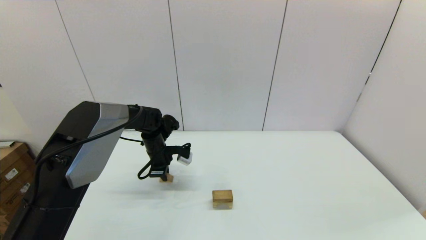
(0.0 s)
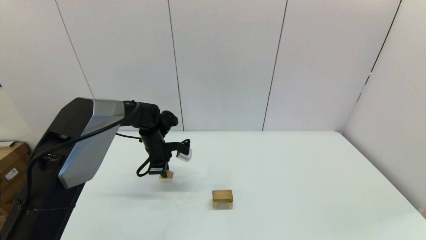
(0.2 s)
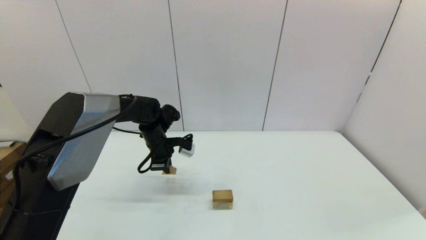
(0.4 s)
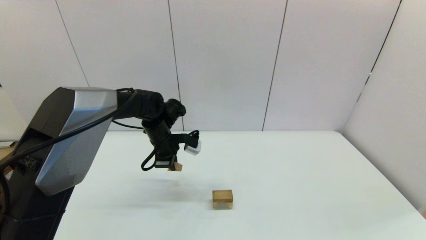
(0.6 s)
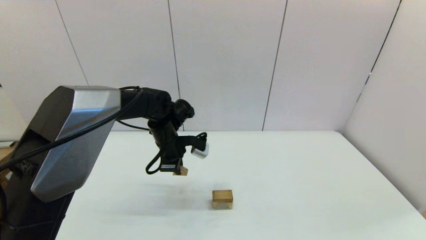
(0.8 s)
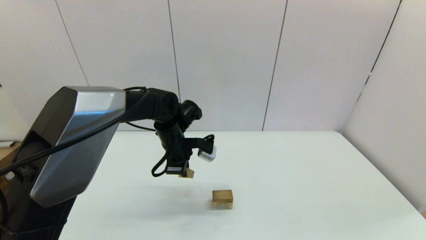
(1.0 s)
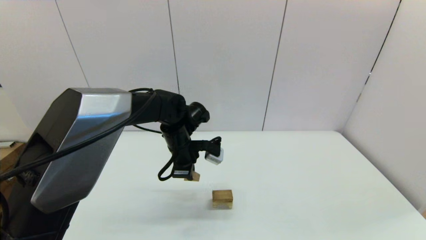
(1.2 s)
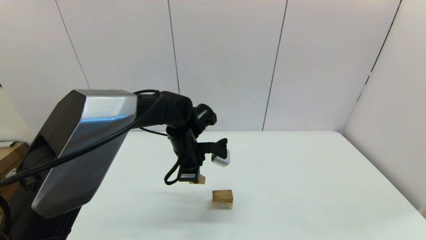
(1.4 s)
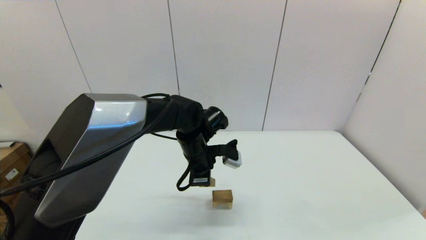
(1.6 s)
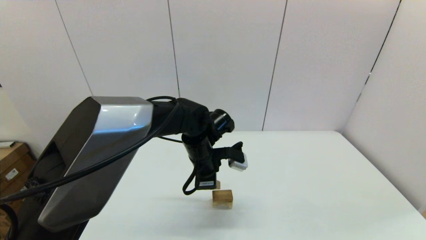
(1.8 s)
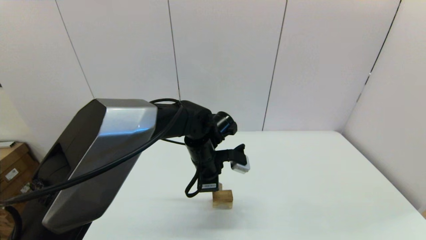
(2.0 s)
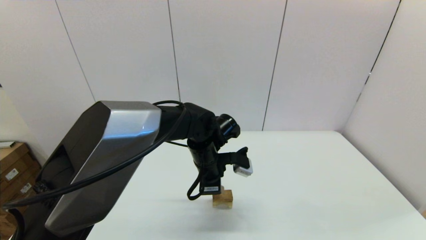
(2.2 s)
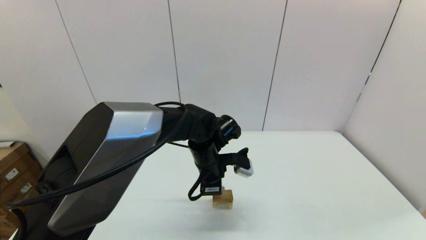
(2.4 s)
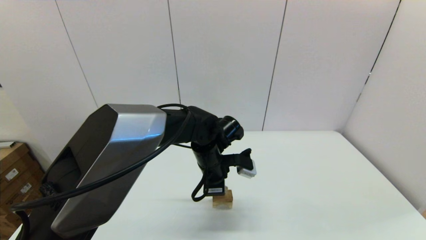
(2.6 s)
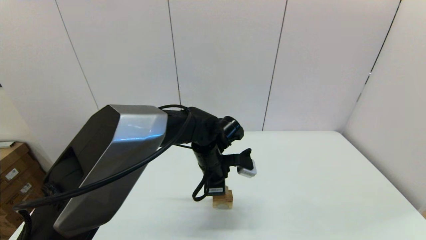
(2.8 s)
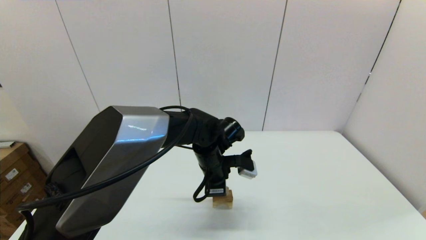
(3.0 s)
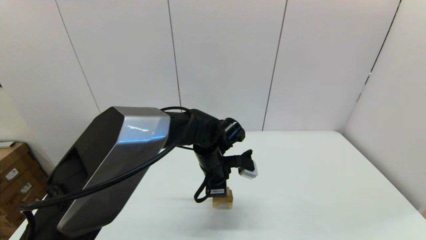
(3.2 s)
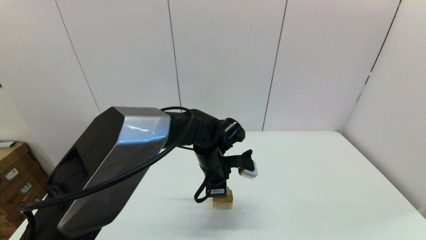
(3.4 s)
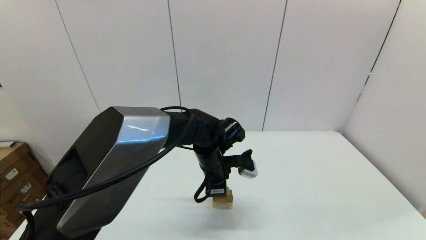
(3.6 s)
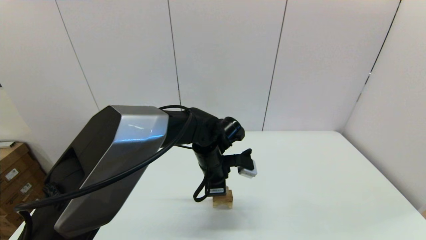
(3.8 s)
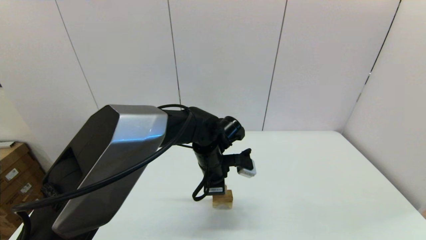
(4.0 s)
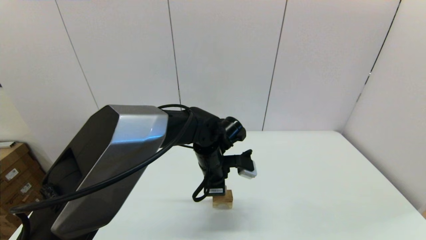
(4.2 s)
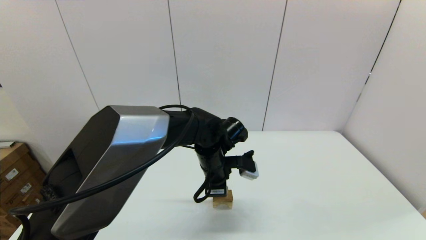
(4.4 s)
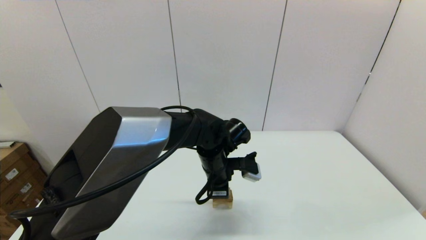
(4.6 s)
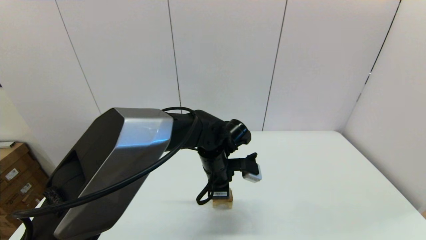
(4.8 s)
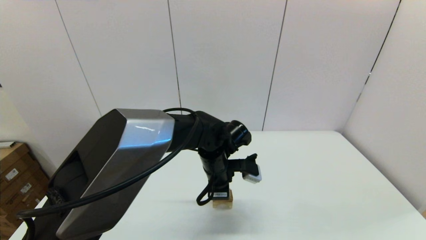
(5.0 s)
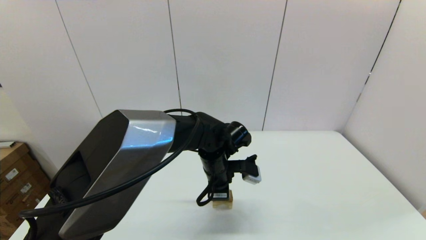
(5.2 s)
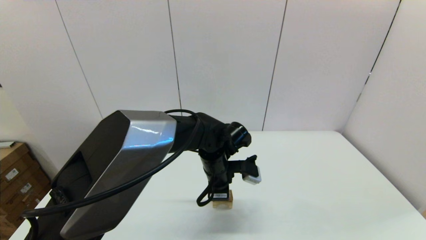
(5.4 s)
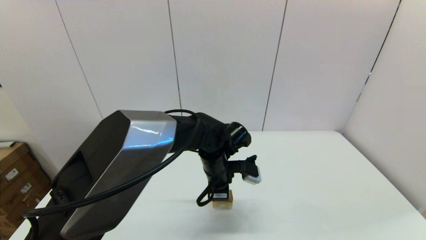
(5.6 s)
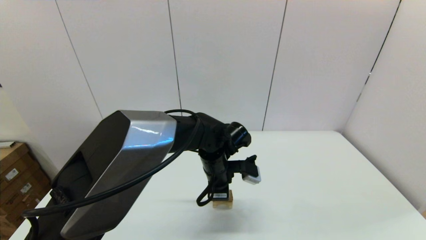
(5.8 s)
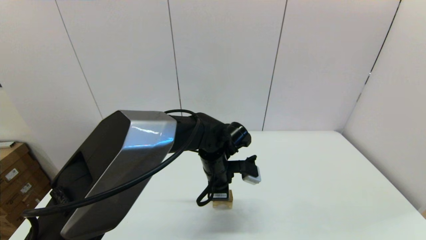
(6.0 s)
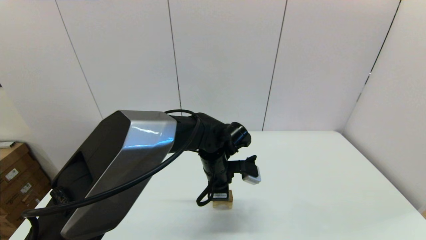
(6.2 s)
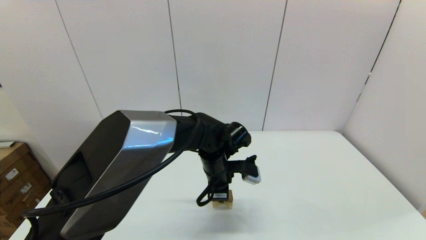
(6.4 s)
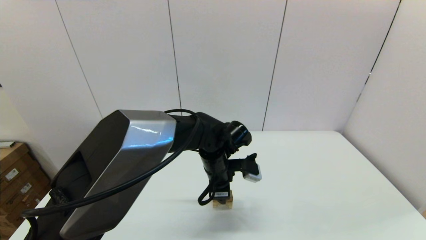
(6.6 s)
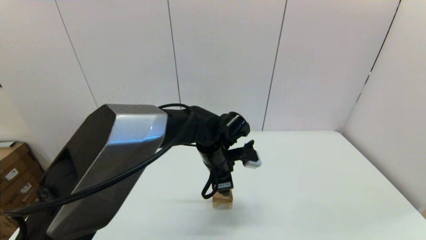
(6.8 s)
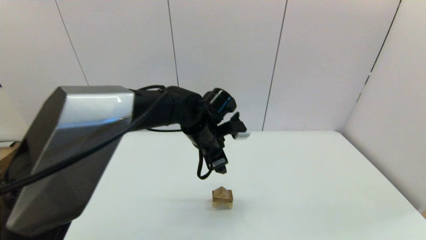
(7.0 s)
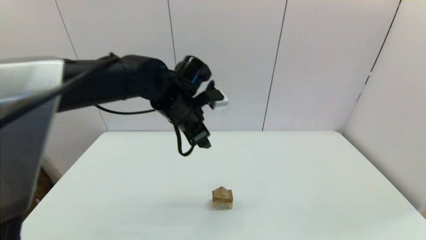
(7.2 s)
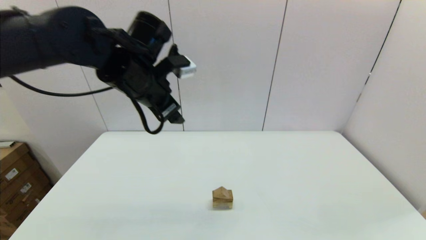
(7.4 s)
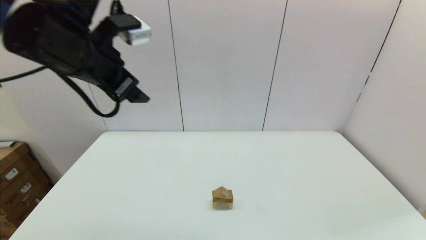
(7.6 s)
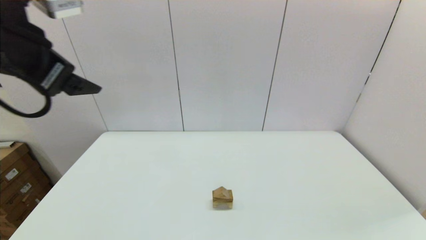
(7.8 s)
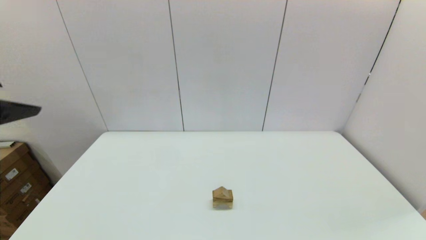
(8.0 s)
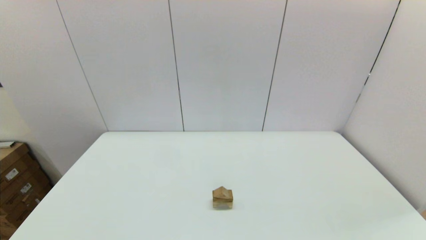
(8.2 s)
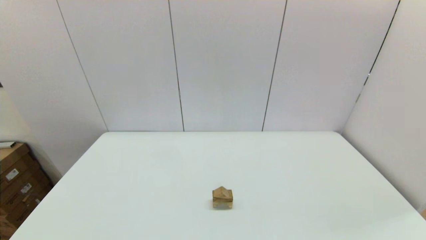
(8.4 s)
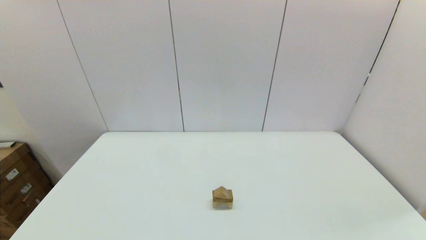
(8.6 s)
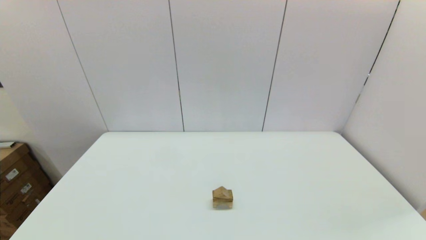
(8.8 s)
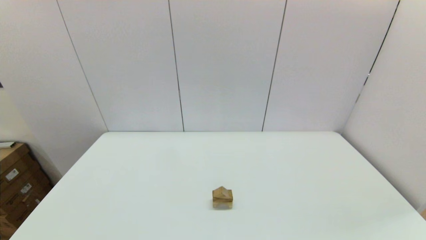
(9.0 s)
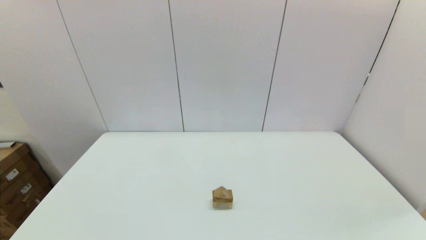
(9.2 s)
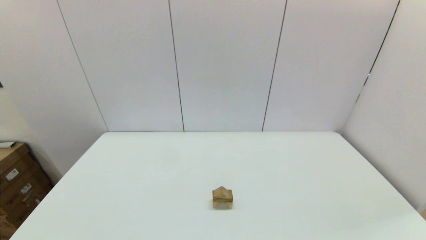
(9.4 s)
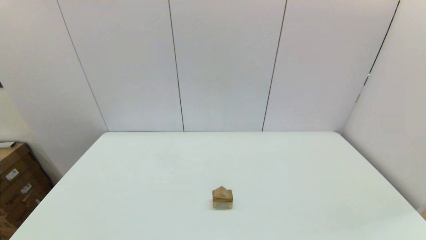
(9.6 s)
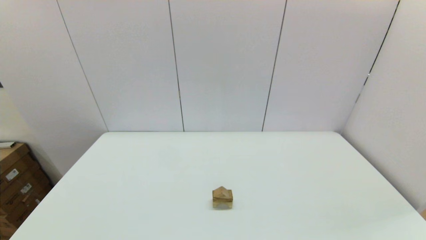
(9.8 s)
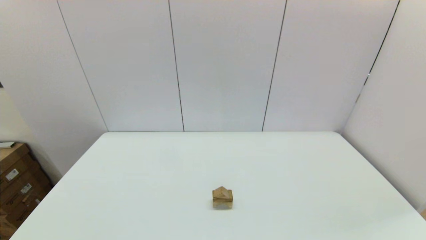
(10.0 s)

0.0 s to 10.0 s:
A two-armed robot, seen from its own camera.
Task of the whole recording: place the arched building blocks in the center of the table, set up the rectangular building blocks, and then set up the triangular building blocks.
0.0 to 1.4 s: The left gripper is displaced to the right, backward and upward by some 15 cm.
1.4 to 2.8 s: The left gripper heads to the right, covering about 5 cm.
2.8 to 4.2 s: The two grippers keep their place.
4.2 to 5.8 s: The grippers stay close to where they were, moving slightly.
5.8 to 7.2 s: The left gripper goes roughly 15 cm upward and to the left, and opens.
7.2 to 8.6 s: The left gripper goes approximately 50 cm backward and to the left.

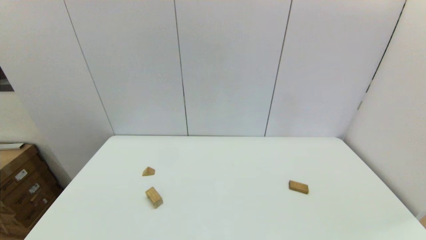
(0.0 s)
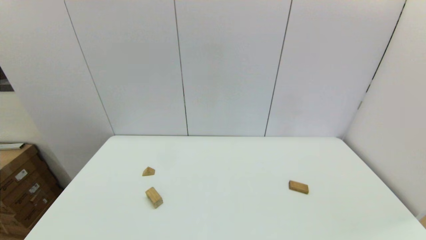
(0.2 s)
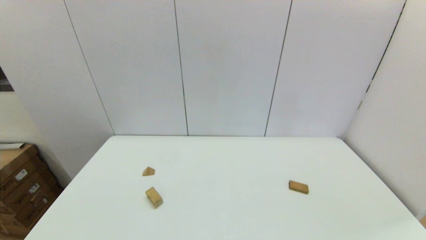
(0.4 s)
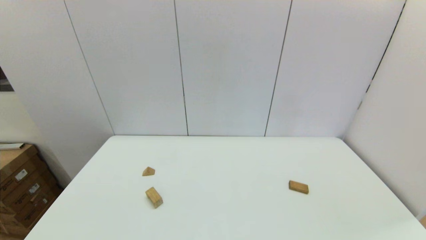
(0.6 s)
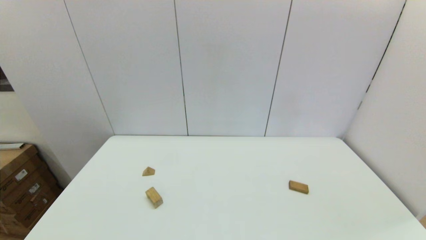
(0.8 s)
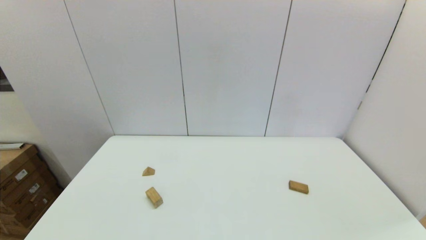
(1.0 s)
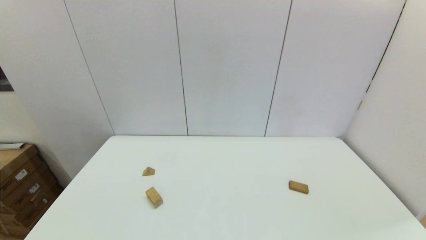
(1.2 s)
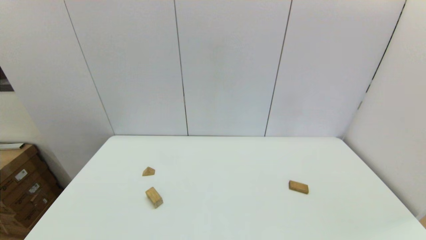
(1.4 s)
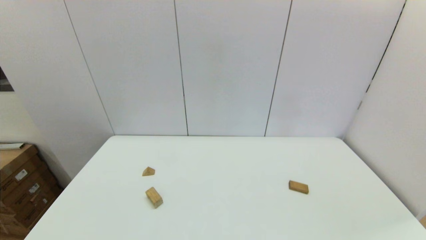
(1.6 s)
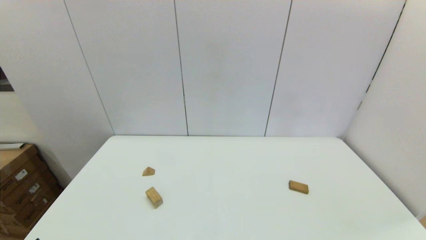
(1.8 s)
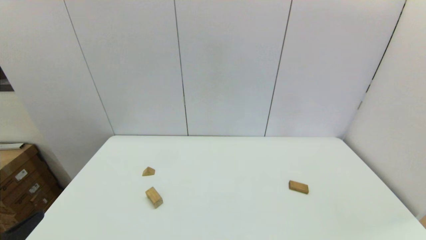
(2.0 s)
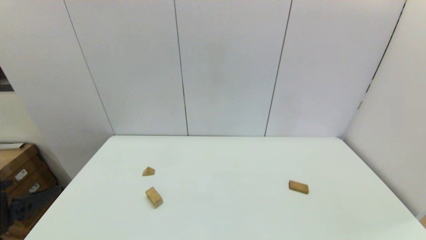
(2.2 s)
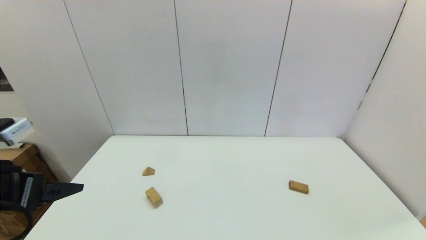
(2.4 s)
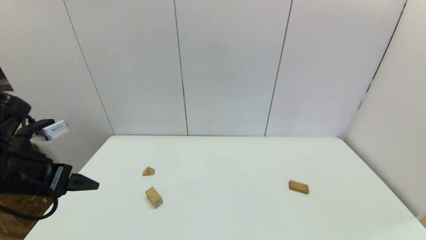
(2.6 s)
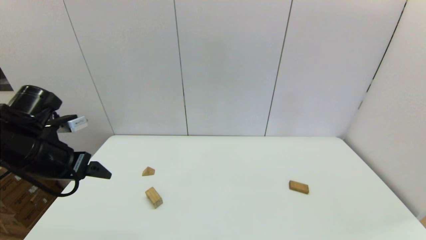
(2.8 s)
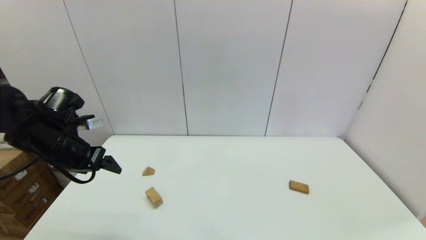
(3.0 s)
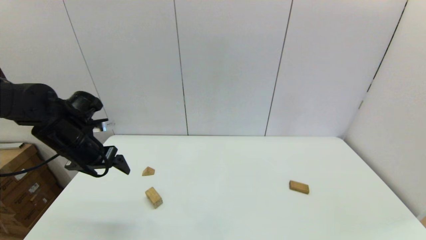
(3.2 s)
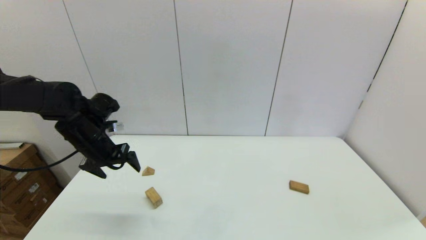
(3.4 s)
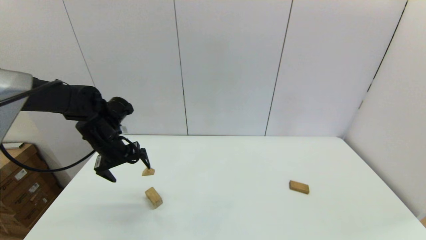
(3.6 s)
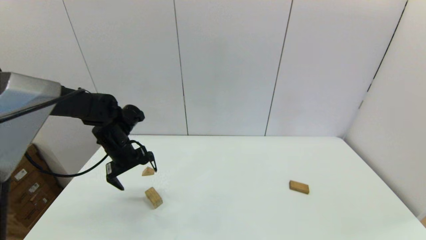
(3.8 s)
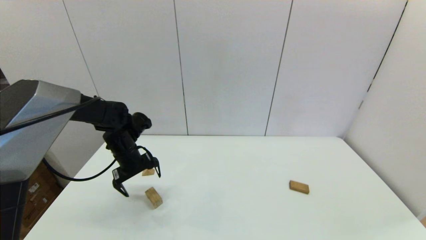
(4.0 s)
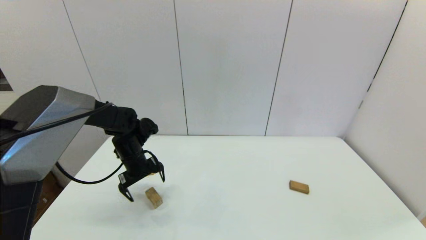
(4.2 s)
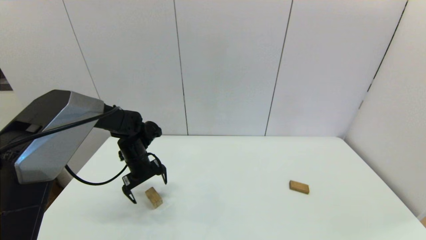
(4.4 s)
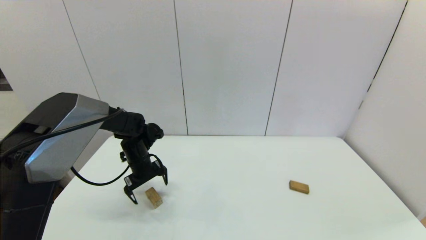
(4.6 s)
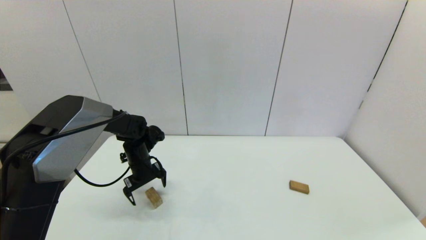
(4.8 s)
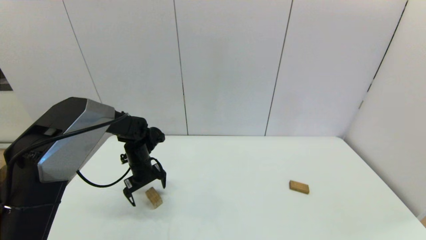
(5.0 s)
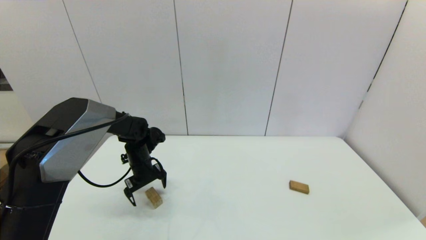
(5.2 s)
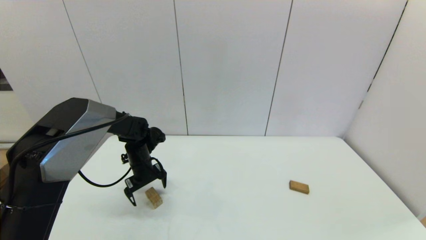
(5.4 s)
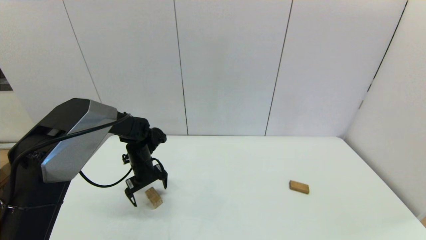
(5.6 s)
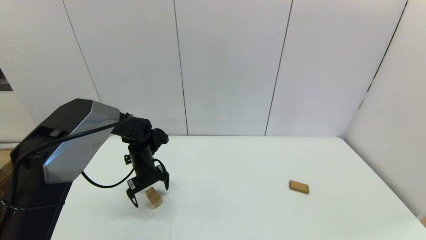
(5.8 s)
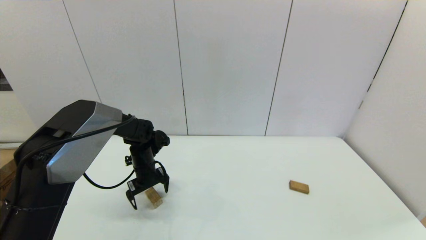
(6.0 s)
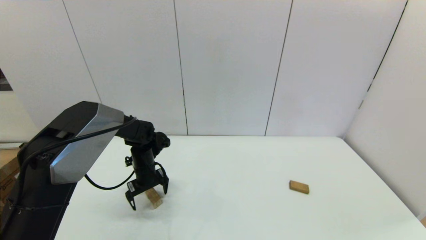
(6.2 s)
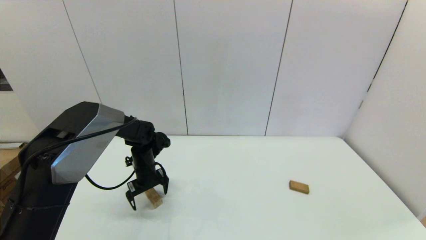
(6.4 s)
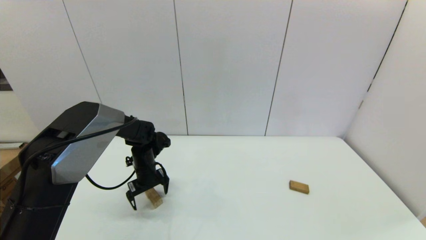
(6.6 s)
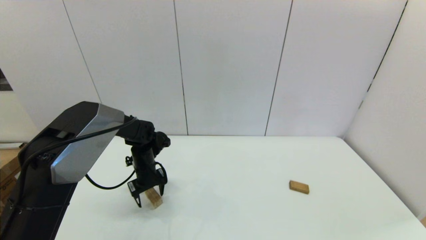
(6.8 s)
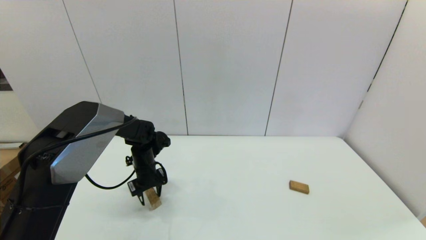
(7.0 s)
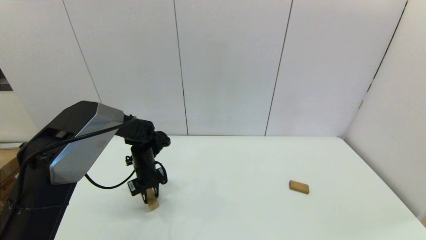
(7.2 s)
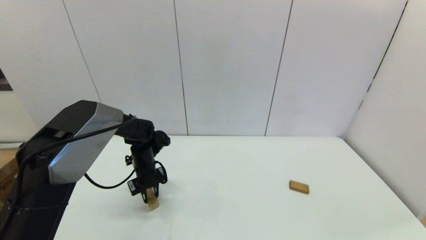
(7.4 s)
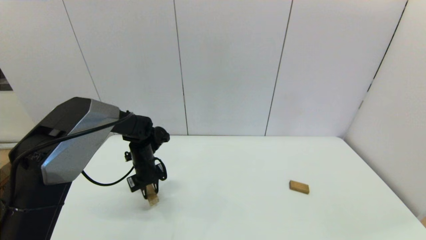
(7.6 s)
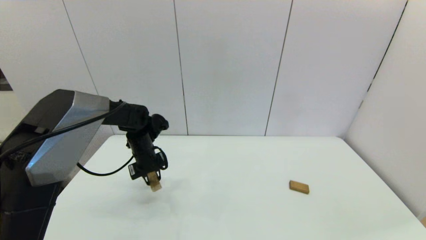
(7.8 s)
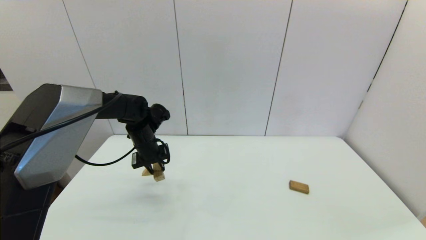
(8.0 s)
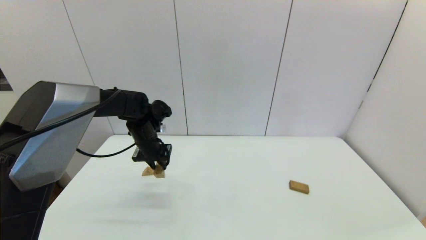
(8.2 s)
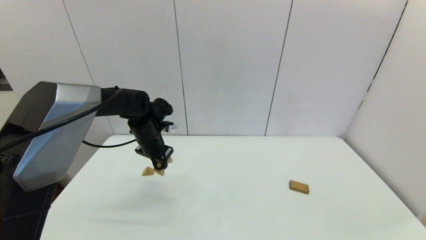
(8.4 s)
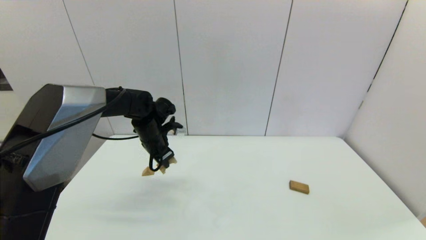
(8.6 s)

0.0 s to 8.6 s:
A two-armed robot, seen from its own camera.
Task of the whole recording: place the arched building blocks in the center of the table, set up the rectangular building blocks, and then set up the triangular building blocks.
Step, 2.0 to 7.0 s: Grasp the arch-shaped block with the left gripper.
0.0 to 1.4 s: Both grippers stay put.
1.4 to 2.8 s: The left gripper heads forward and upward, covering approximately 30 cm.
2.8 to 4.4 s: The left gripper heads downward, forward and to the right, covering approximately 20 cm.
4.4 to 5.8 s: The grippers stay close to where they were, moving slightly.
5.8 to 7.2 s: The left gripper closes its fingers.
7.2 to 8.6 s: The left gripper travels upward by approximately 10 cm.
